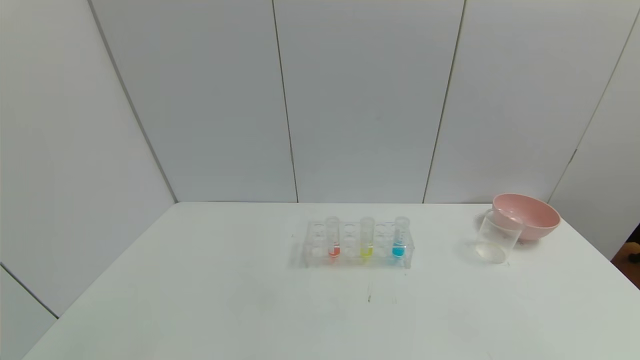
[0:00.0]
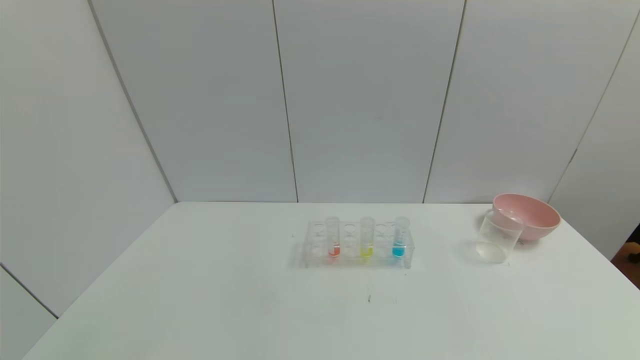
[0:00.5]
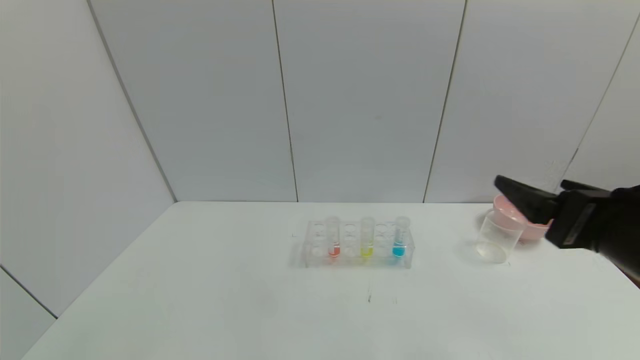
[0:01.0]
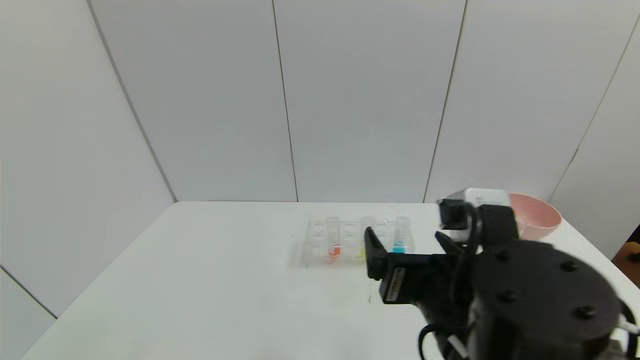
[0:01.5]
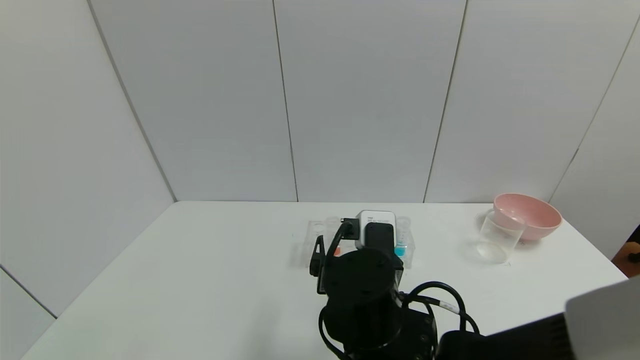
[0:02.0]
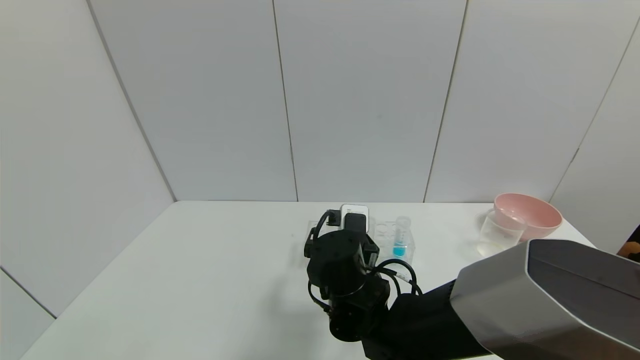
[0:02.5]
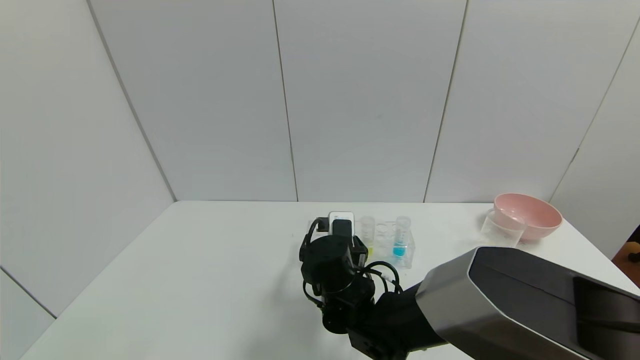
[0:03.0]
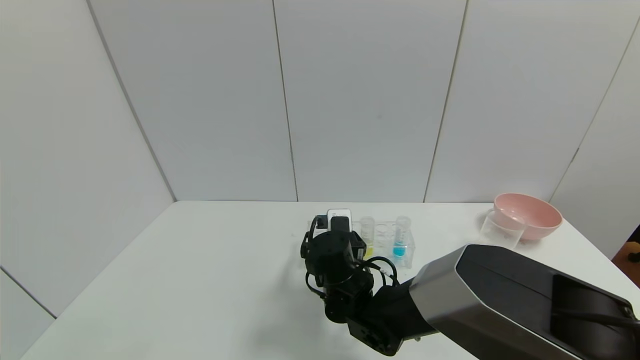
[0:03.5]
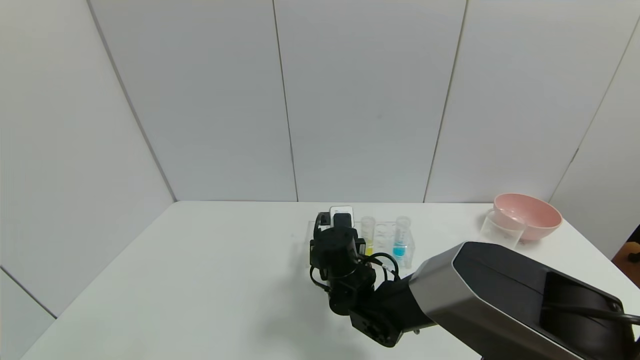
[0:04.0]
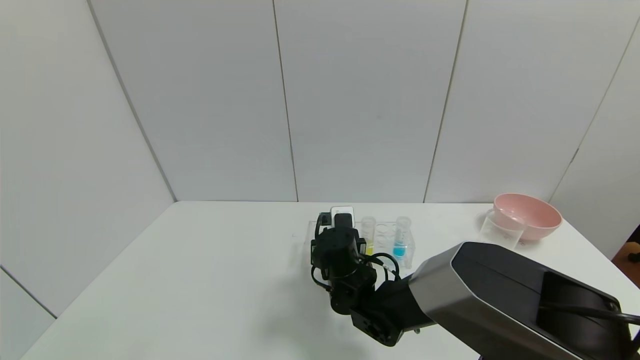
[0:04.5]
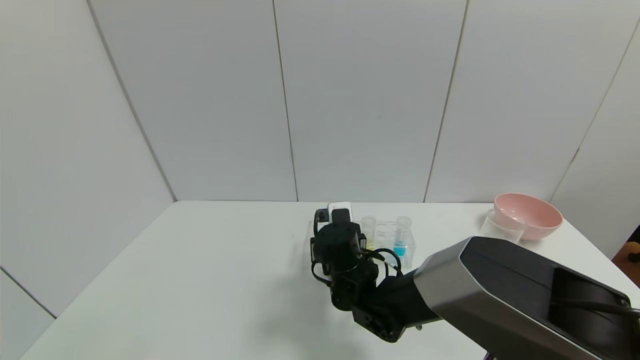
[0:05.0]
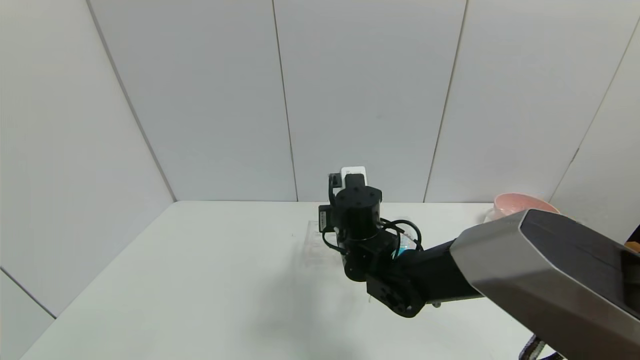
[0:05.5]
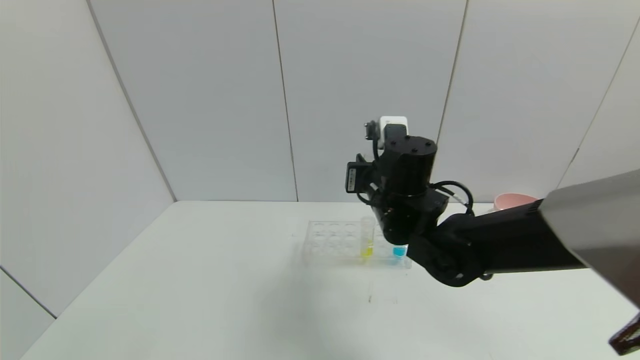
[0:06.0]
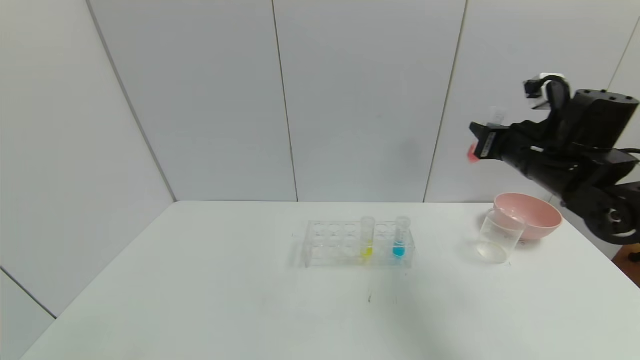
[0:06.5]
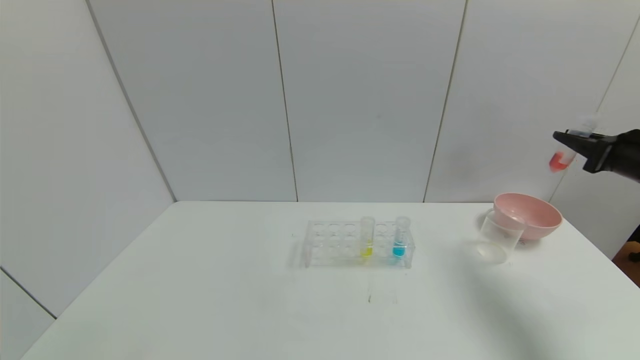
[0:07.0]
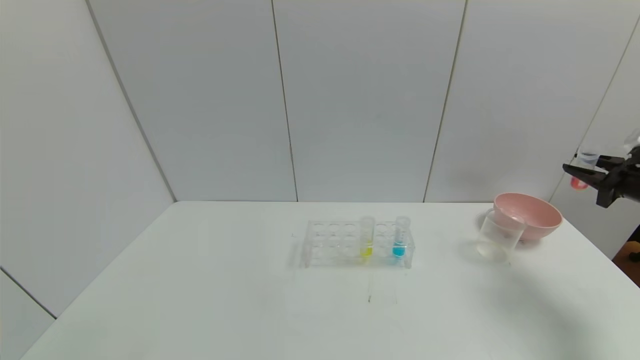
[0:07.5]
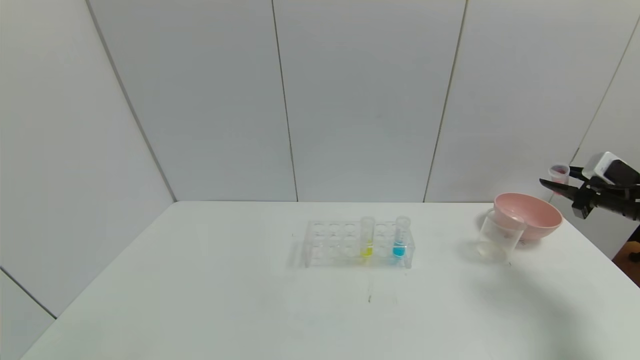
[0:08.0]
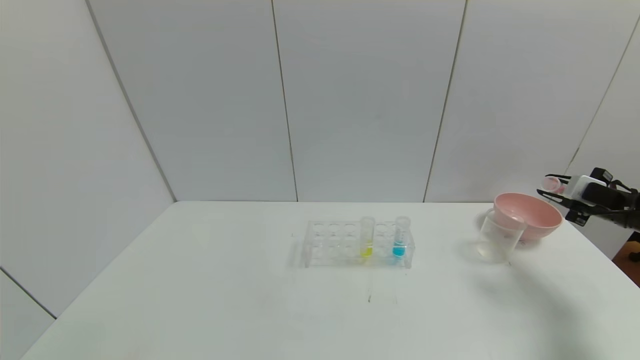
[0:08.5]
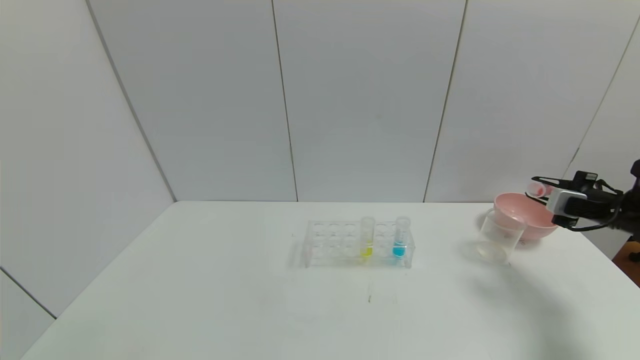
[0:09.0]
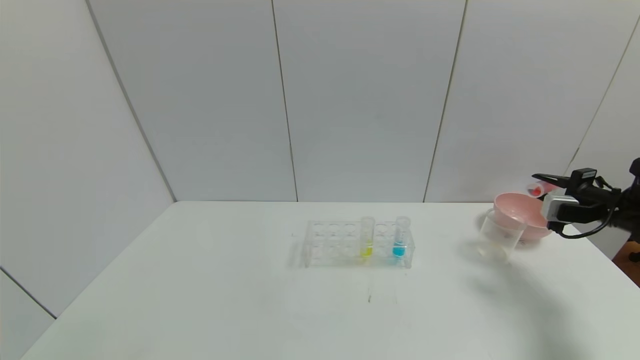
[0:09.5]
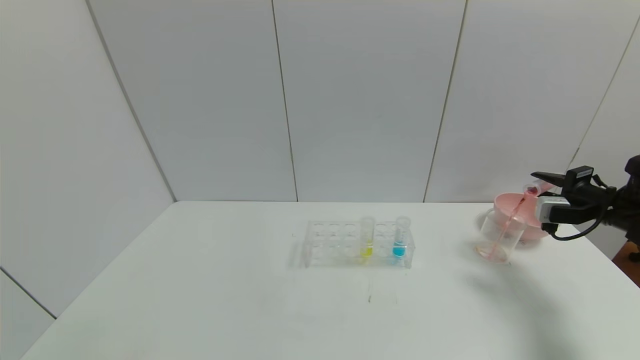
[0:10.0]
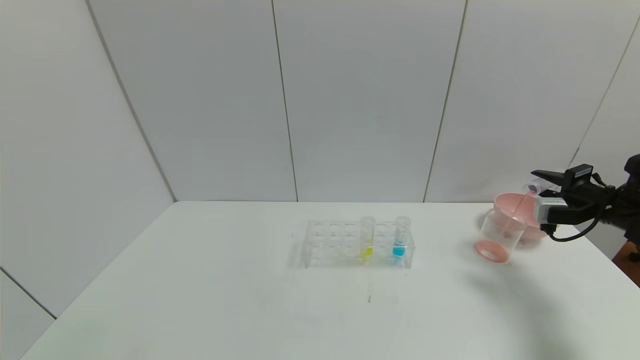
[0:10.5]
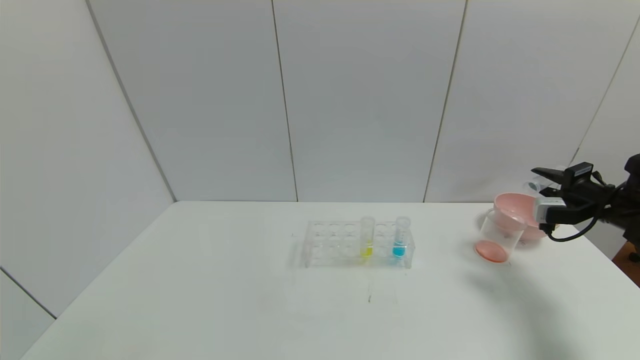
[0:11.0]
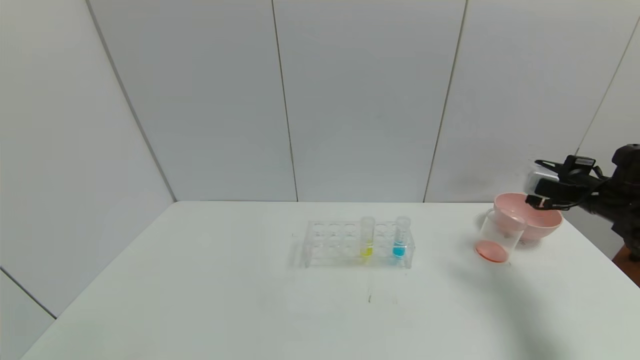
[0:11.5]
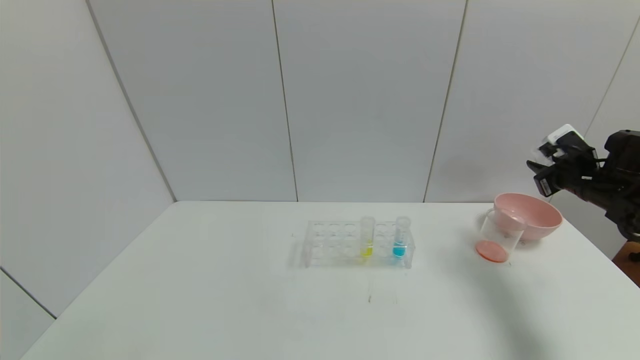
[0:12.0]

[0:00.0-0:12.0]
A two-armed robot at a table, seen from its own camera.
Task of the whole recording: pick up the test tube with yellow pigment and the test tube with red pigment by grippers and pour them into the beaker.
Step, 0:00.0 to 0:06.0: Pick up the test tube containing the red reagent with right gripper.
0:00.0 to 0:02.0: The right gripper goes roughly 40 cm to the left and forward.
0:02.0 to 0:04.0: The right gripper is displaced forward and downward by roughly 15 cm, and closes its fingers.
0:04.0 to 0:06.0: The right gripper heads upward and to the right, covering some 15 cm, and closes its fingers.
0:06.0 to 0:08.0: The right gripper moves to the right, roughly 40 cm.

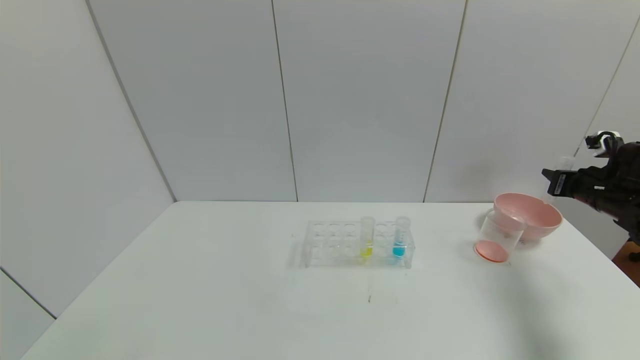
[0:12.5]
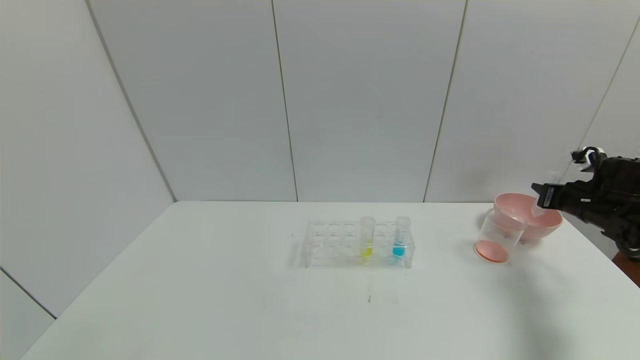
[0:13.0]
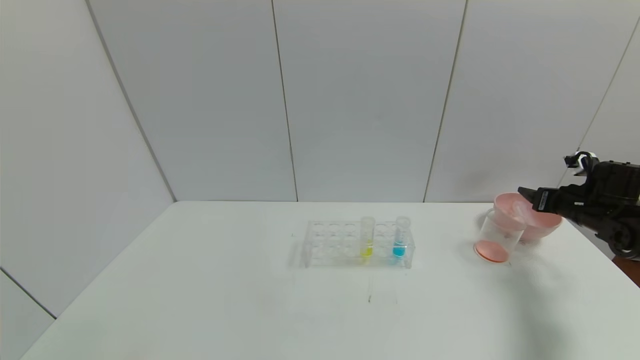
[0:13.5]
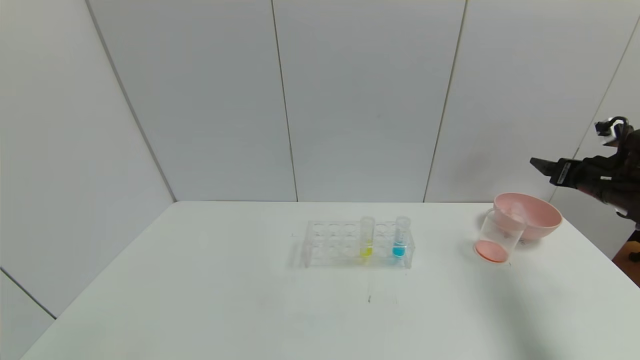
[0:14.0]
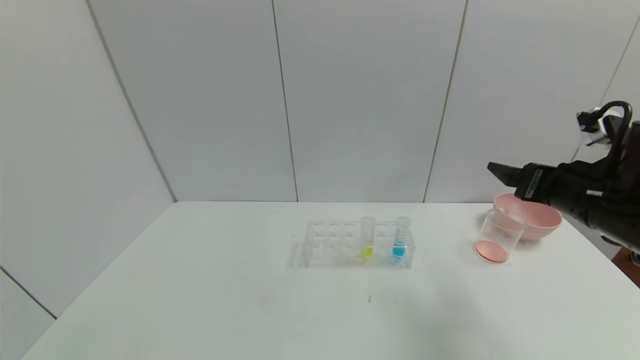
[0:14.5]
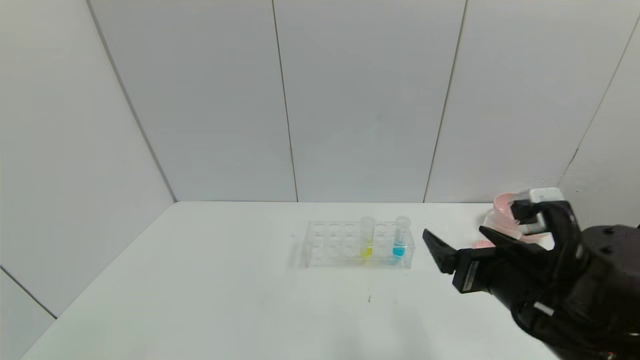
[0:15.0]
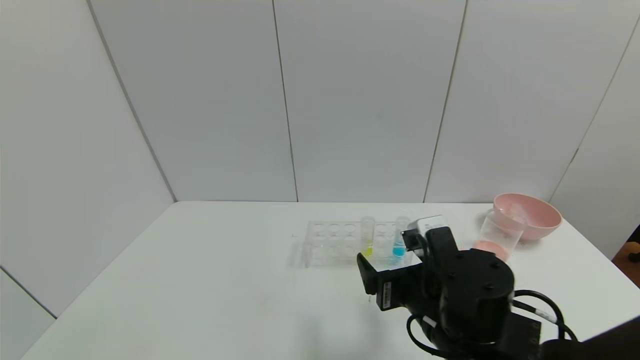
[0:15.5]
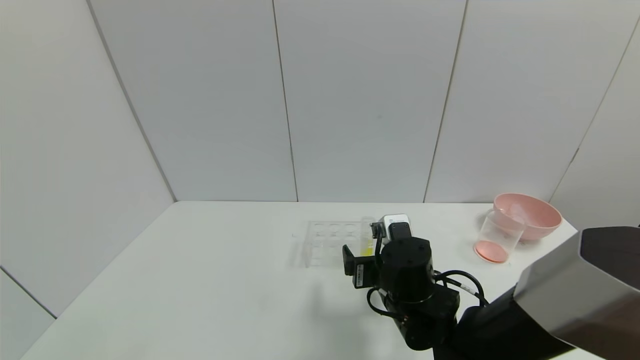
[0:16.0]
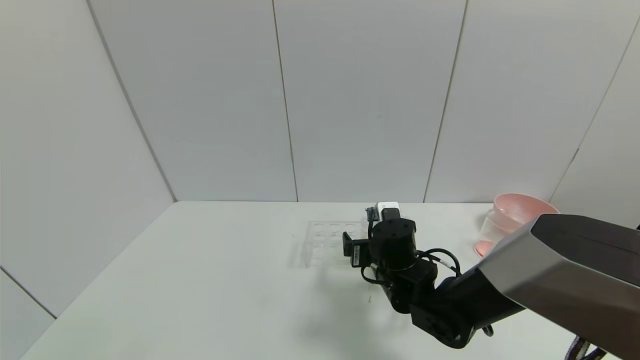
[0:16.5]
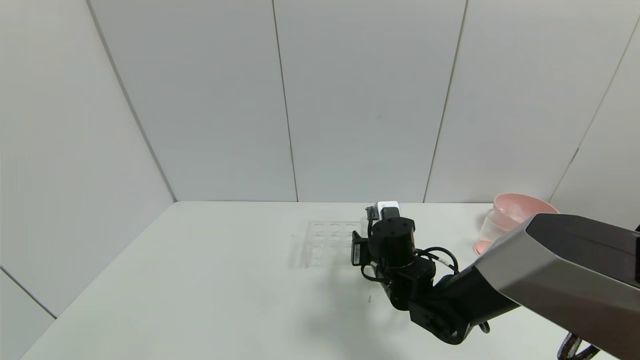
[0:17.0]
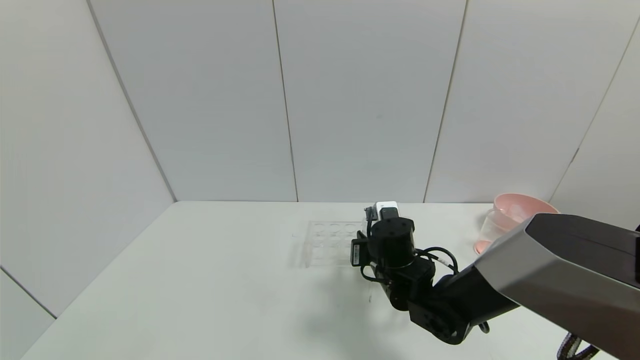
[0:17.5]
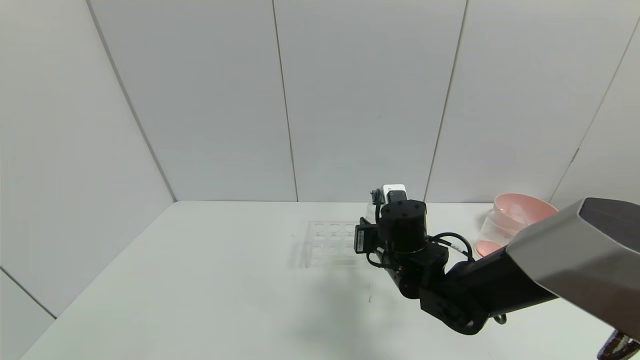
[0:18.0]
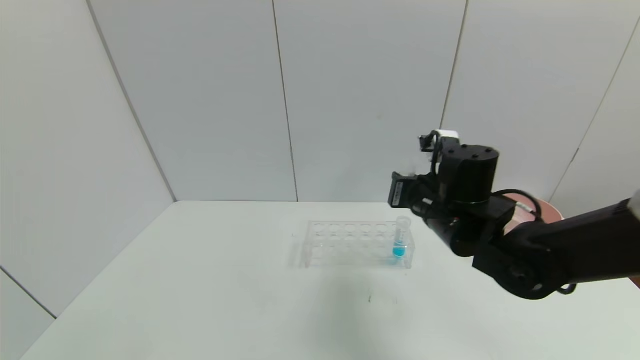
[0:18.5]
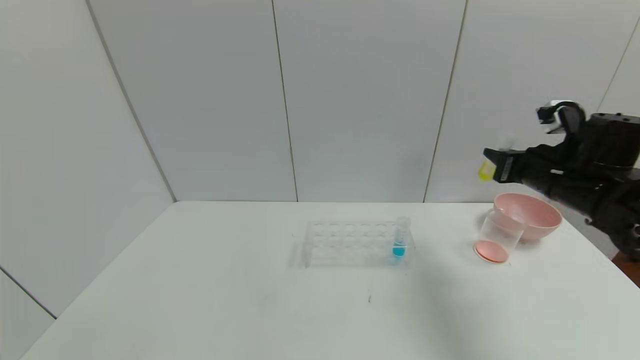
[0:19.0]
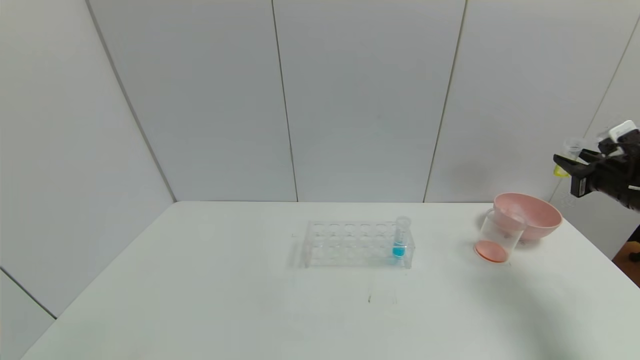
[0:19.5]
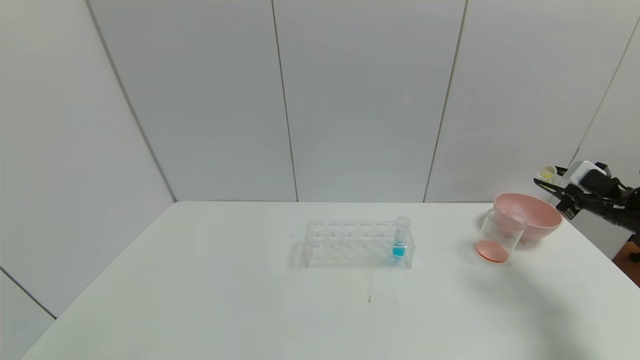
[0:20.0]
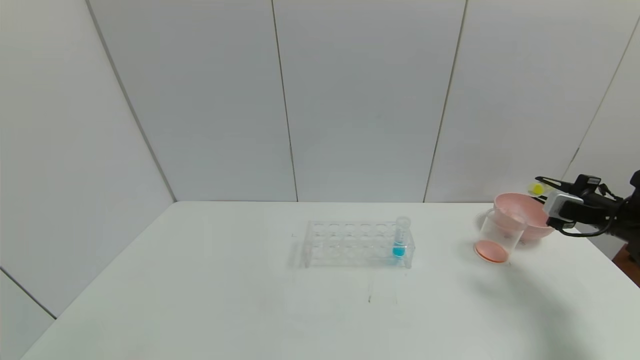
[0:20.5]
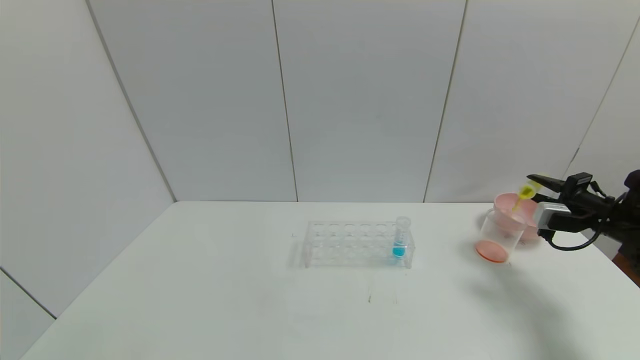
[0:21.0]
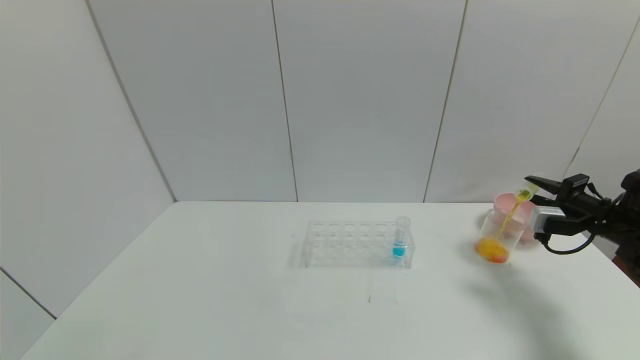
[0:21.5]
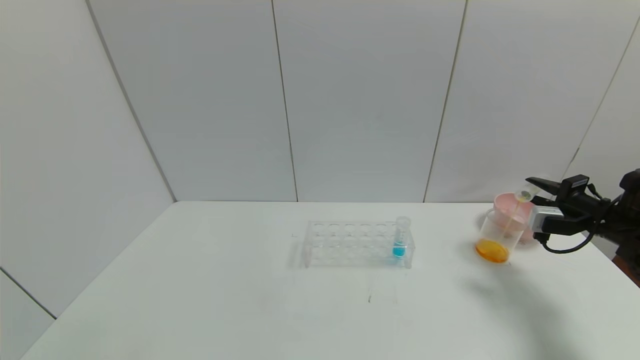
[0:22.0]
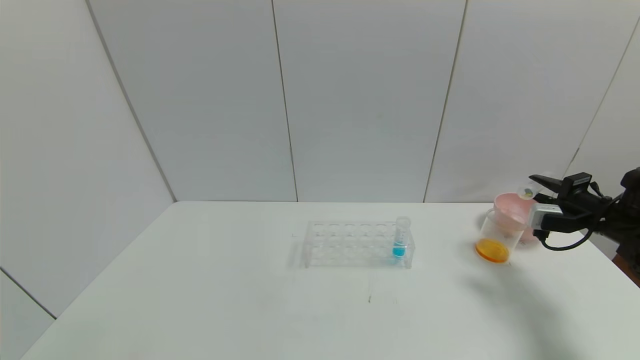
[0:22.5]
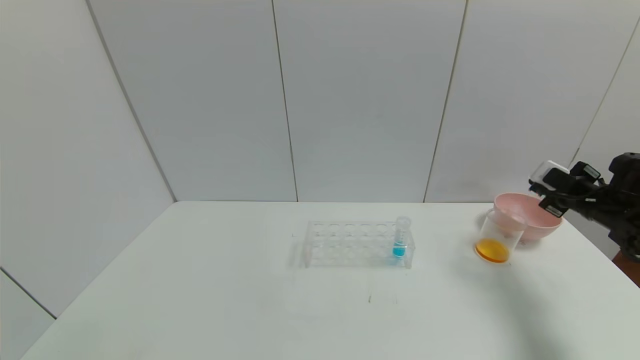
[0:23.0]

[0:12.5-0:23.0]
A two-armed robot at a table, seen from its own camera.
Task of the whole recording: pick up the test tube with yellow pigment and the test tube with red pigment by grippers and pour them into the beaker.
Step, 0:12.5 to 0:14.5: Place the test tube into the bowl with right gripper.
Step, 0:15.0 to 0:18.5: Pick up the test tube containing the yellow reagent with right gripper.
0:12.5 to 0:14.5: The right gripper travels to the left and backward by roughly 20 cm, and opens up.
0:14.5 to 0:16.5: The right gripper shifts some 25 cm to the left and downward.
0:16.5 to 0:19.0: The right gripper goes about 30 cm to the right and upward, and closes up.
0:19.0 to 0:21.0: The right gripper moves to the right and downward, approximately 15 cm.
